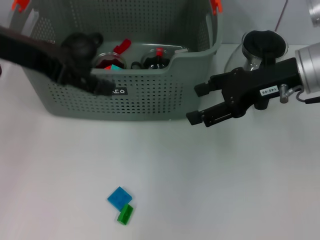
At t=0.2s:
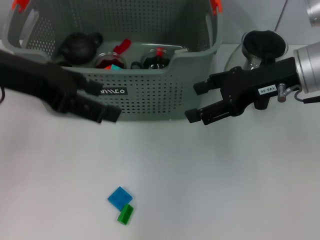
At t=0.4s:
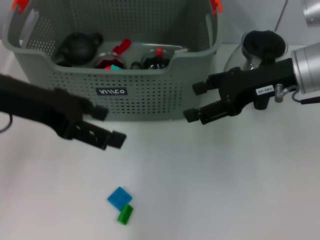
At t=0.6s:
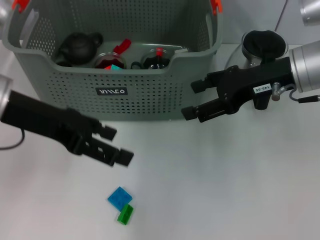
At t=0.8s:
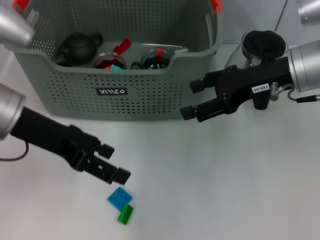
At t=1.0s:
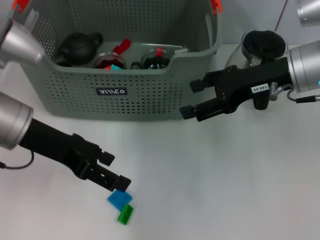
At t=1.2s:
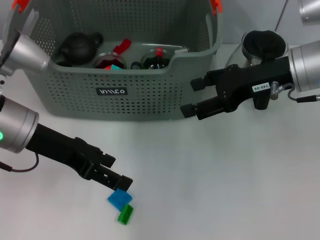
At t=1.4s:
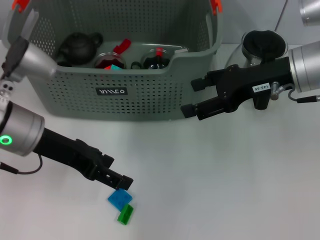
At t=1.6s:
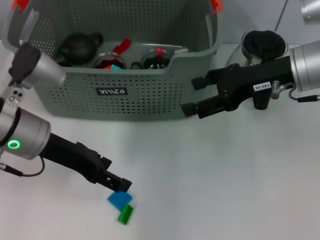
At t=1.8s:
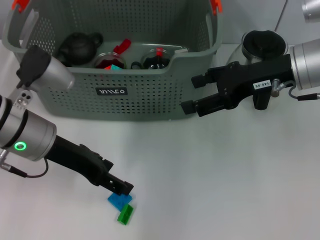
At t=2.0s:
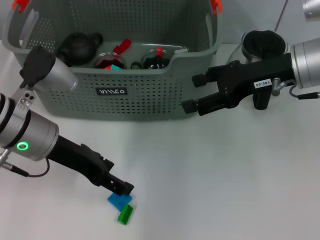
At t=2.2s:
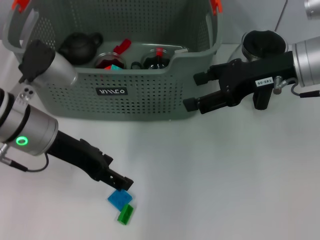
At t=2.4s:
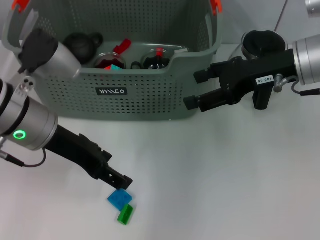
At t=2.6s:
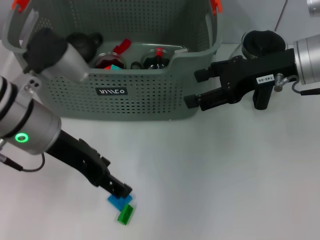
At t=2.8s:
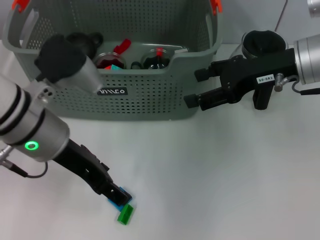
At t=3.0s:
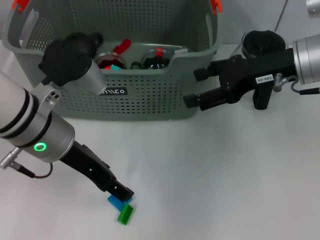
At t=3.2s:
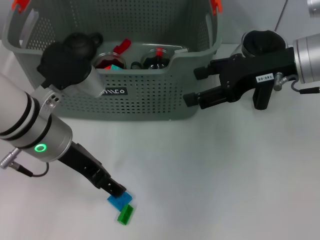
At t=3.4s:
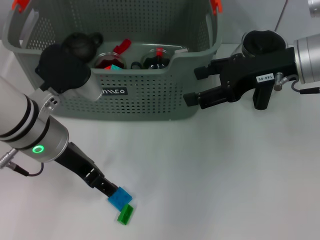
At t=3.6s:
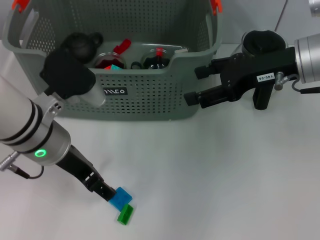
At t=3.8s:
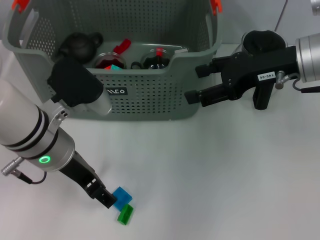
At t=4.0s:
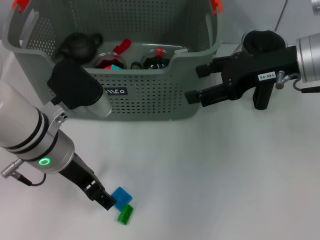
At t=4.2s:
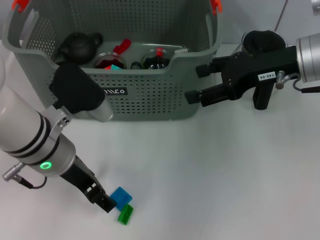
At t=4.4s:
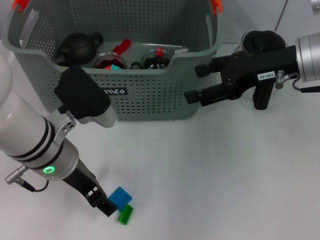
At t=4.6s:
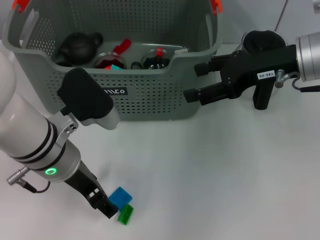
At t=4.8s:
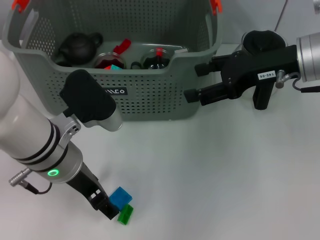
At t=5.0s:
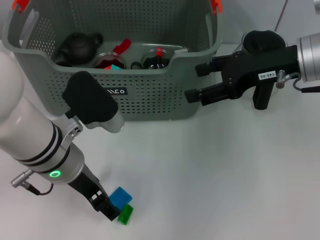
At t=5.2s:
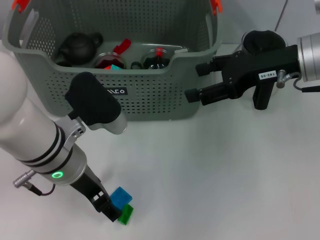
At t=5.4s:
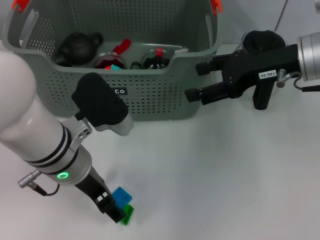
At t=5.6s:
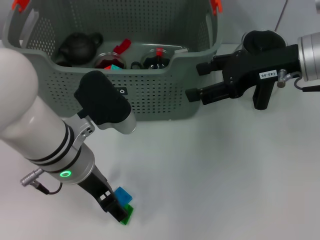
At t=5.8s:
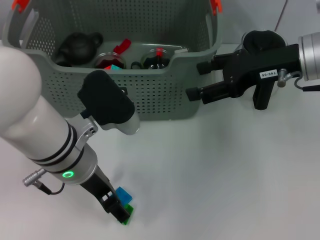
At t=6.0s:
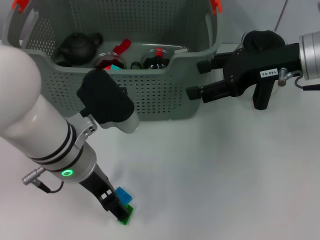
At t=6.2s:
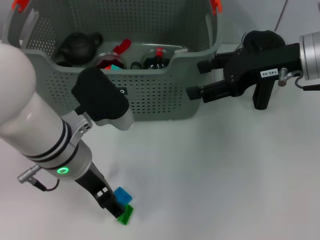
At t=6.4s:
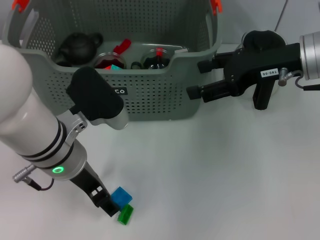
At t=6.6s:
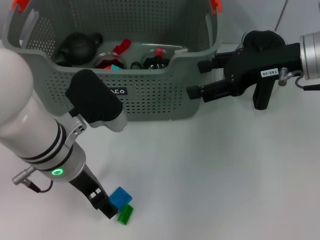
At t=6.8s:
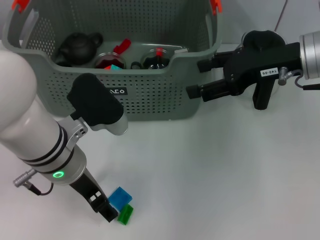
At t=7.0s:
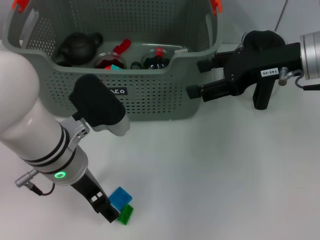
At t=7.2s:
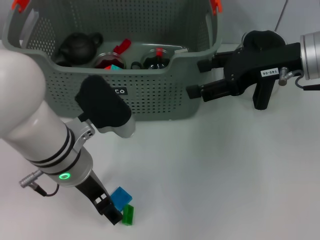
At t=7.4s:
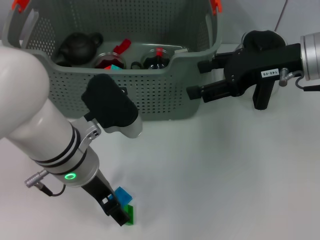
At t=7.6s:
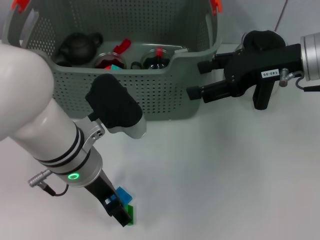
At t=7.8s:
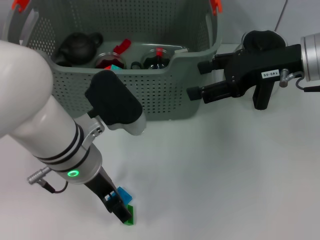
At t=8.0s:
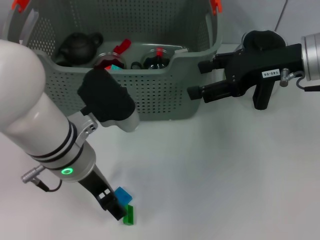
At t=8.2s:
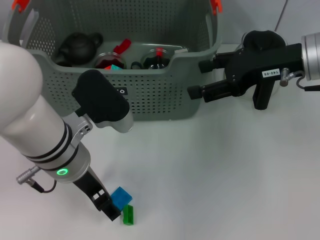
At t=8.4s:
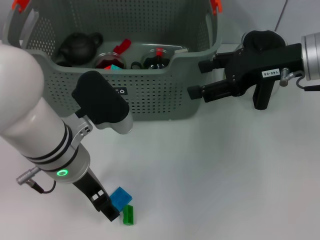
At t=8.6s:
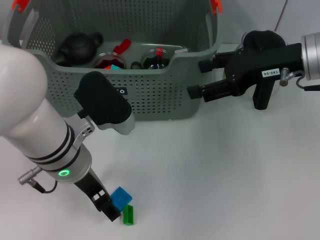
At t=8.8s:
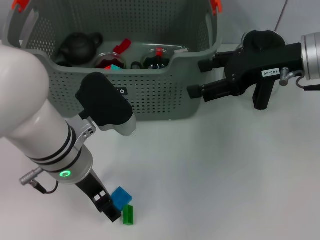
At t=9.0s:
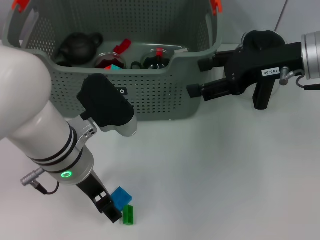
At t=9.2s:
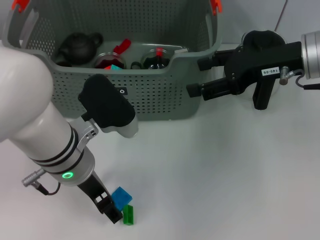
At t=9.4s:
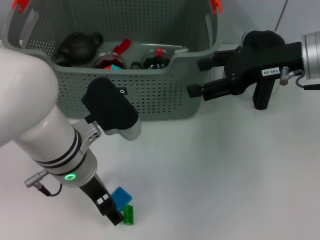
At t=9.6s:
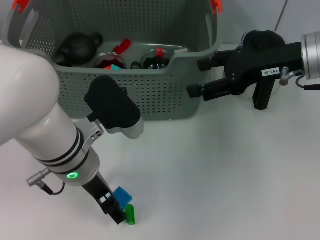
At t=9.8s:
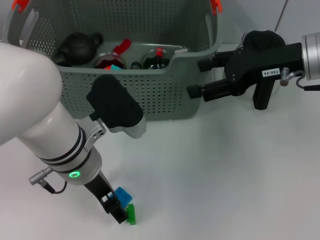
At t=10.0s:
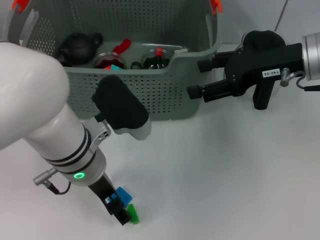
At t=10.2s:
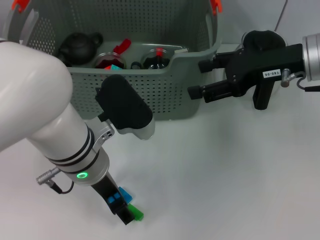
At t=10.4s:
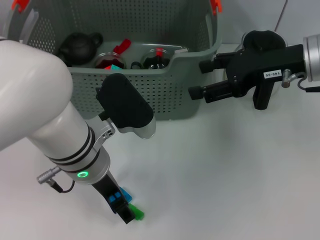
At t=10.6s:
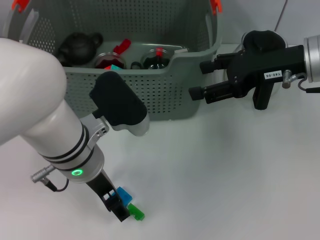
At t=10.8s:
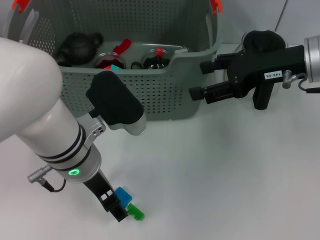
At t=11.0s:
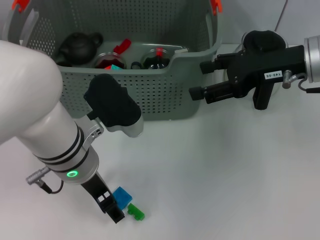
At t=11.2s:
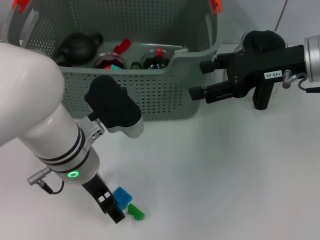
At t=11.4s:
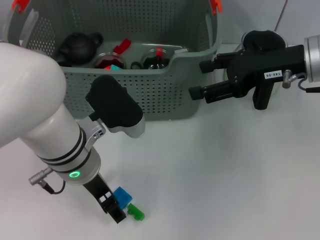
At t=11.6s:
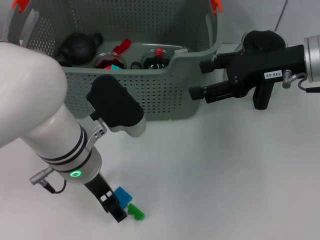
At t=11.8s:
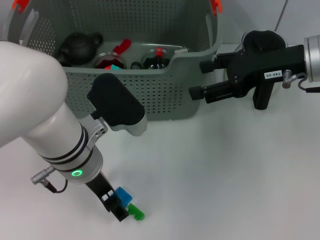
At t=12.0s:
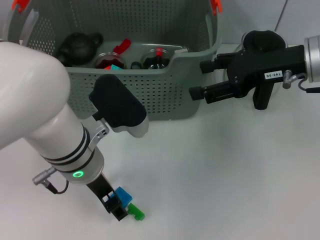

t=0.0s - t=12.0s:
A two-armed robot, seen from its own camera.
Task of the whole recording: pick up the teacup on the table and place it into the storage bin, pick up the block on the table and place it into the storage bin.
t=0.0s - t=1.6s: The left gripper heads downward, covering roughly 15 cm.
t=1.6s - t=3.0s: The left gripper ends up some 5 cm from where it was.
t=3.0s - t=9.0s: There are only small adjustments of the grippers.
t=9.0s - t=12.0s: There are only small adjustments of the grippers.

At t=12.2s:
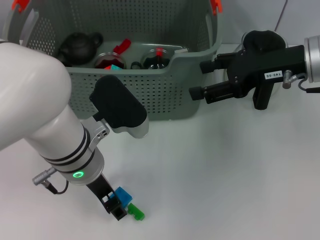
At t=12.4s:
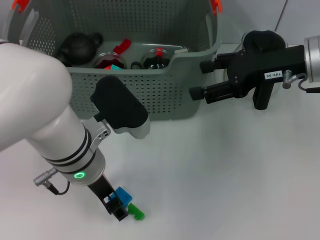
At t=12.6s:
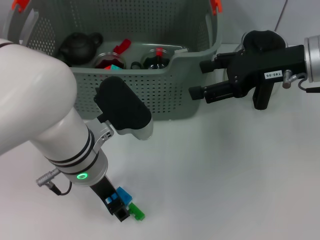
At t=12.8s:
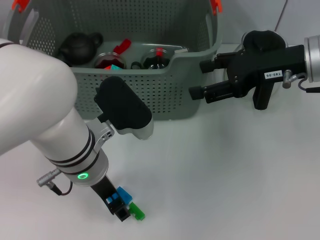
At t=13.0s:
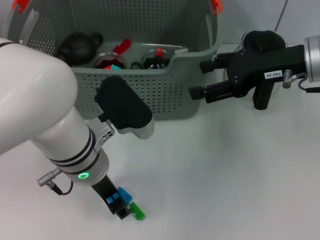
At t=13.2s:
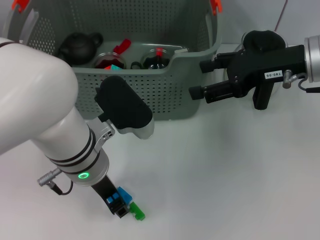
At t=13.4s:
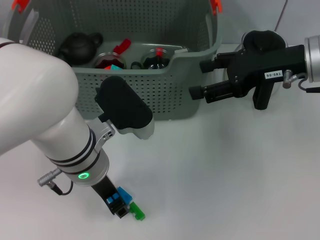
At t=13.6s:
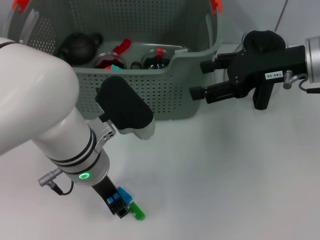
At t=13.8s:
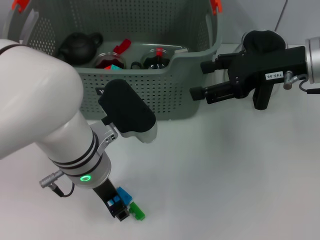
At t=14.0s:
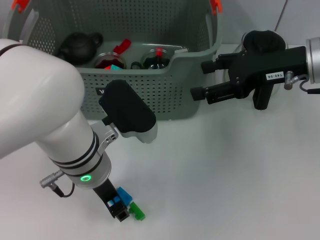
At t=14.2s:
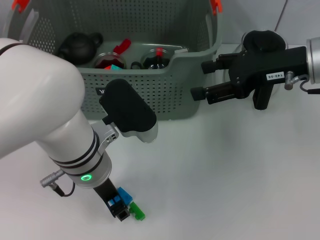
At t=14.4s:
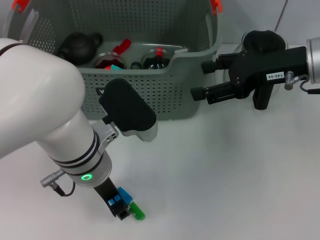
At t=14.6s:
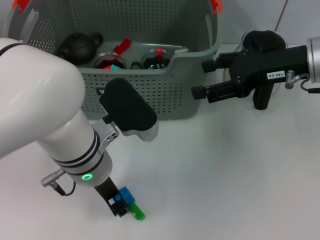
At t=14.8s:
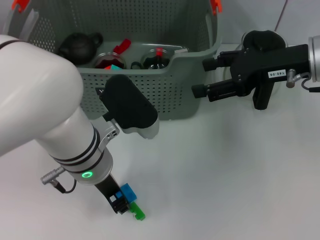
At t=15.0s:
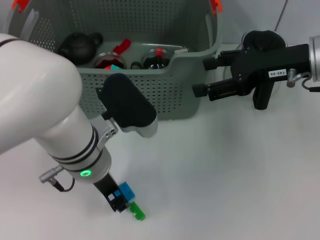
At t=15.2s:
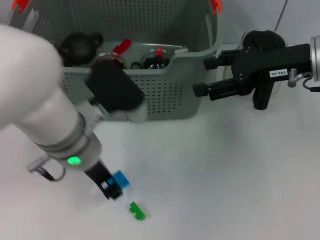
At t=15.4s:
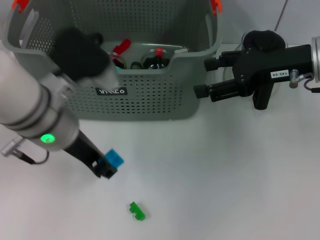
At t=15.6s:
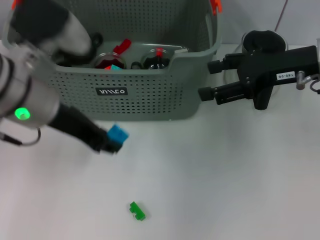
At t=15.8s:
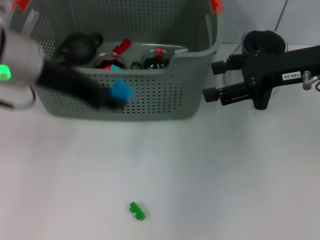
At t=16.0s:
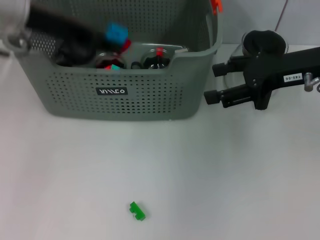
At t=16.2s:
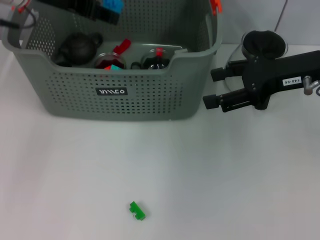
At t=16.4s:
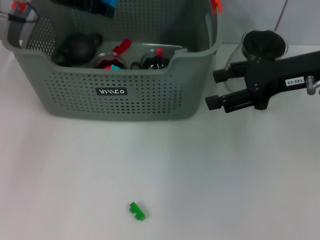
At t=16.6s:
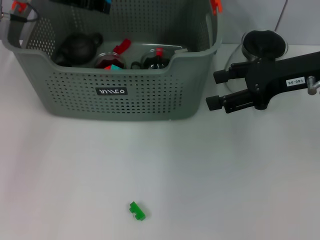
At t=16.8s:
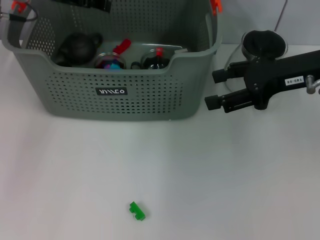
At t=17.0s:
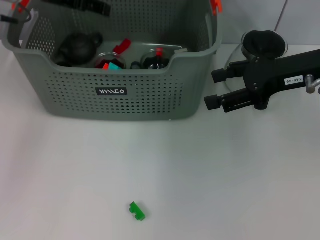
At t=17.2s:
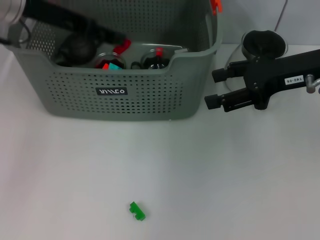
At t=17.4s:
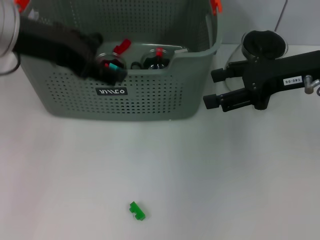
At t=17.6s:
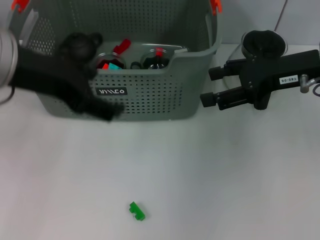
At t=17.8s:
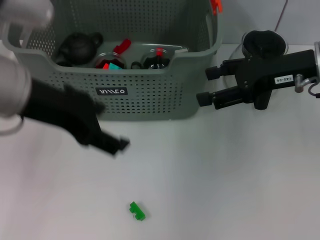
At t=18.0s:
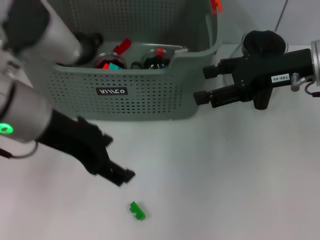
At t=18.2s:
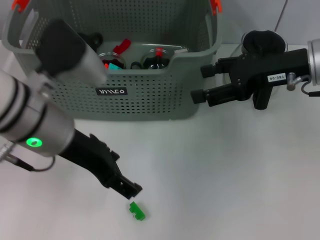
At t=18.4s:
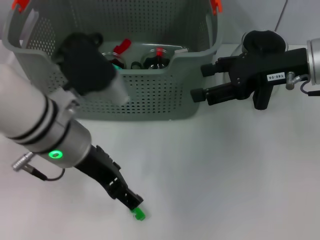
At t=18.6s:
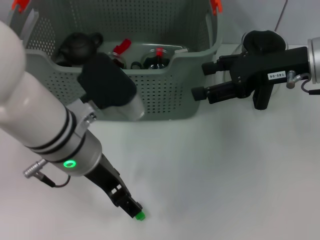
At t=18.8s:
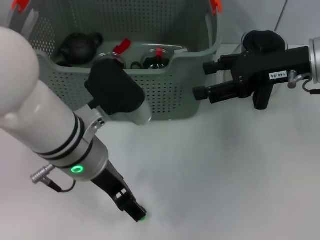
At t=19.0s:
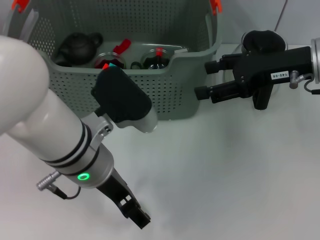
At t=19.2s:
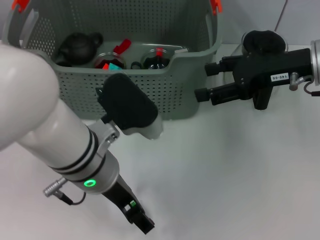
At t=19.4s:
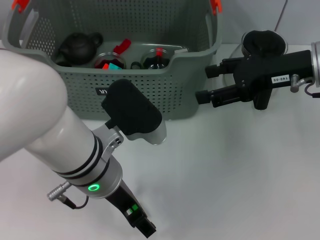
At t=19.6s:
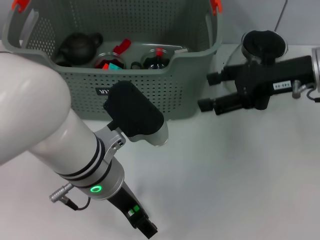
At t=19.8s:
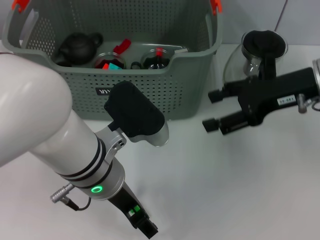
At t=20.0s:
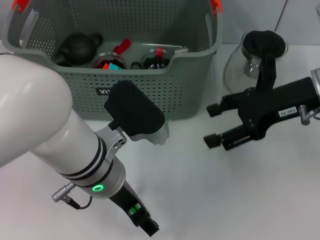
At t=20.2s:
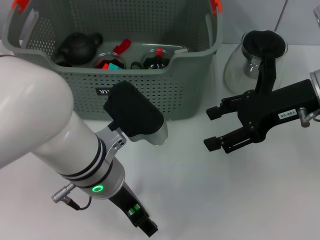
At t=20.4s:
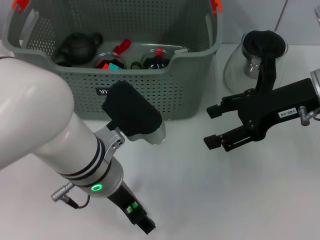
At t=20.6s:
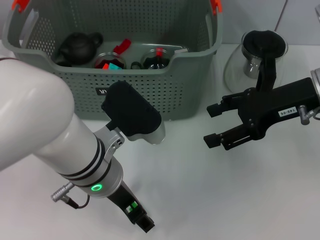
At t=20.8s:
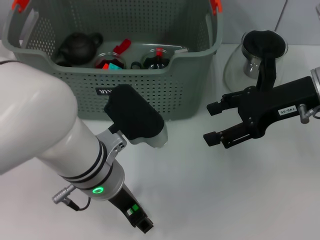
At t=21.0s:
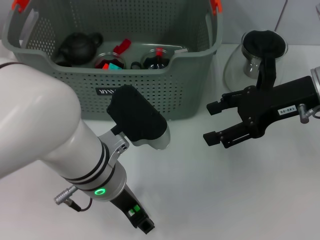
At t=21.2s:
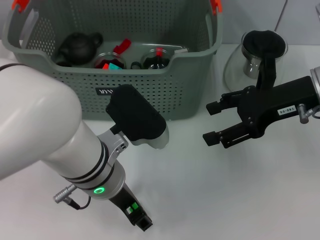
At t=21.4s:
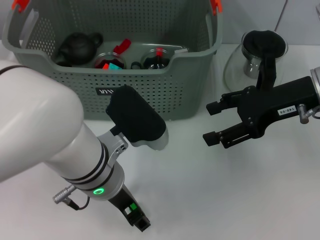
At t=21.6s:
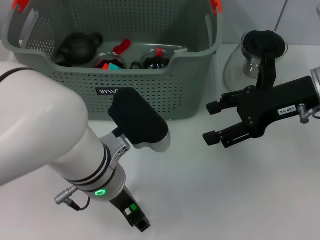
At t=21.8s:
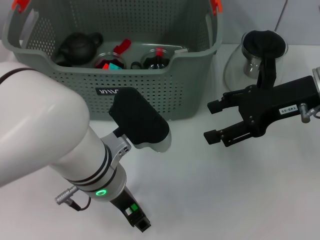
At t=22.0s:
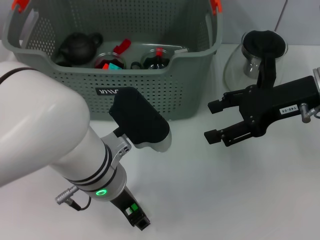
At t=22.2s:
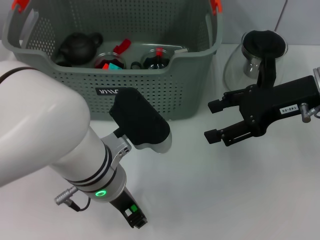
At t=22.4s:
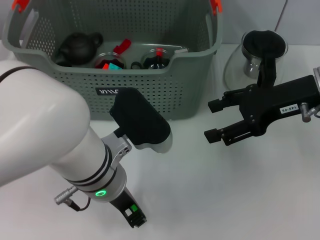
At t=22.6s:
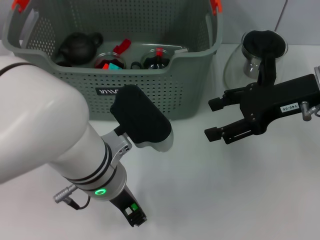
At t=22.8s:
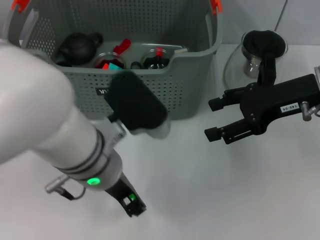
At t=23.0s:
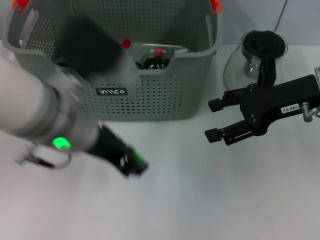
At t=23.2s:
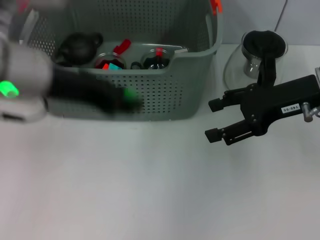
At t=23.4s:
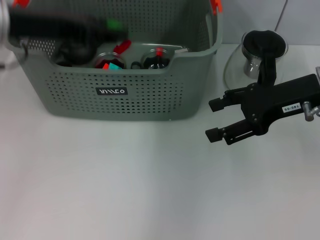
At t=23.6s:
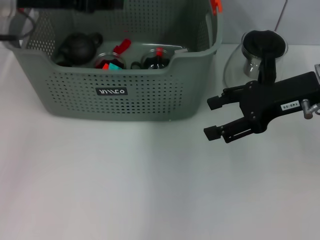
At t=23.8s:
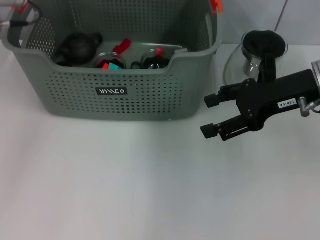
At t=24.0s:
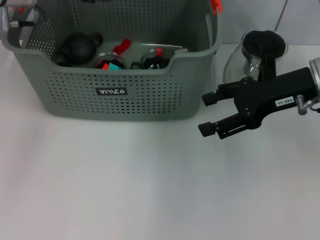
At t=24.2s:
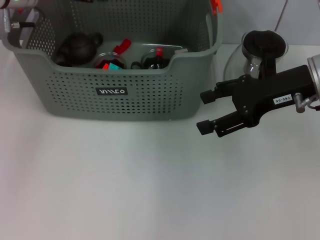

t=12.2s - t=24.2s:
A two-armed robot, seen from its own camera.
Task of the whole recording: pick up the teacup on the table and place it into the storage bin, pick up the block on the table and place it into the storage bin.
Step, t=12.2s - t=14.4s: Grasp the dark blue block with left gripper.
Step, t=14.8s - t=16.8s: Place the dark blue block in the storage box with left gripper.
Step, t=17.0s - t=22.2s: Grasp the green block with left gripper.
t=12.2s - t=13.8s: The two grippers keep their place.
t=13.8s - t=15.2s: The grippers make only small movements.
t=15.2s - t=16.6s: The left gripper moves forward, to the left and upward, roughly 20 cm.
t=16.6s - t=18.2s: The left gripper shifts some 15 cm backward and to the right, and opens.
t=18.2s - t=19.8s: The left gripper heads to the right and downward, covering some 10 cm.
t=19.8s - t=21.2s: There are only small adjustments of the grippers.
t=21.2s - t=22.6s: The left gripper closes.
t=22.6s - t=24.2s: The left gripper moves forward, to the left and upward, approximately 25 cm.
